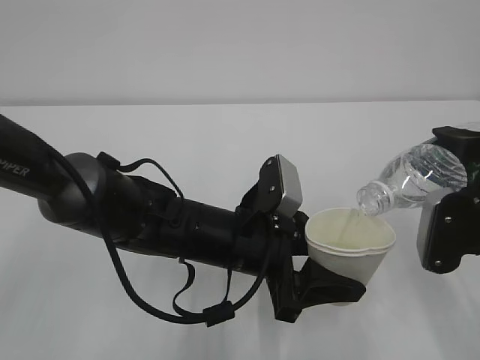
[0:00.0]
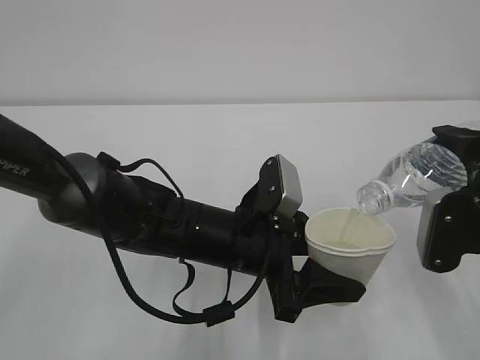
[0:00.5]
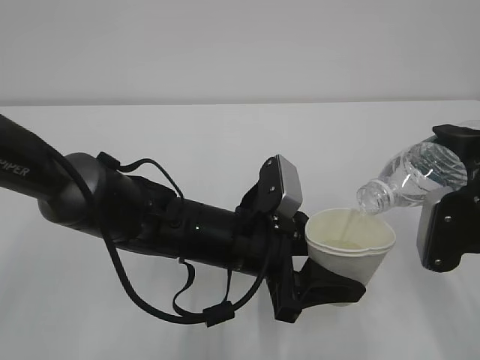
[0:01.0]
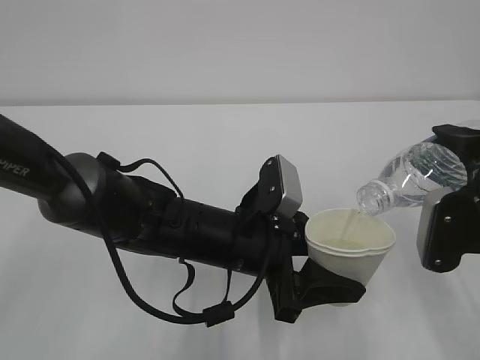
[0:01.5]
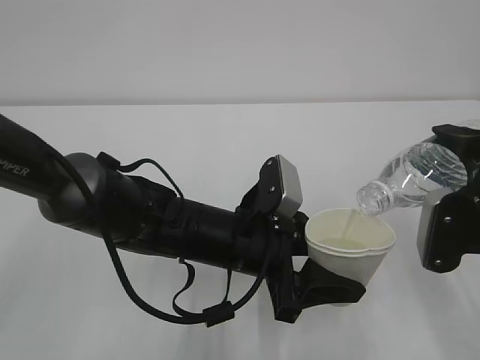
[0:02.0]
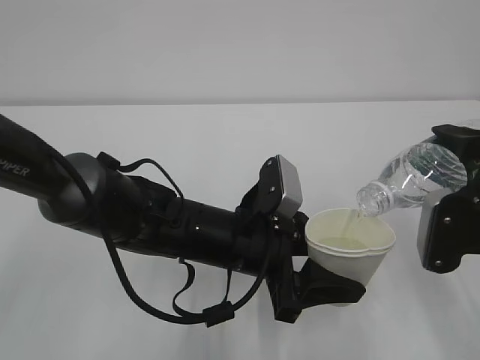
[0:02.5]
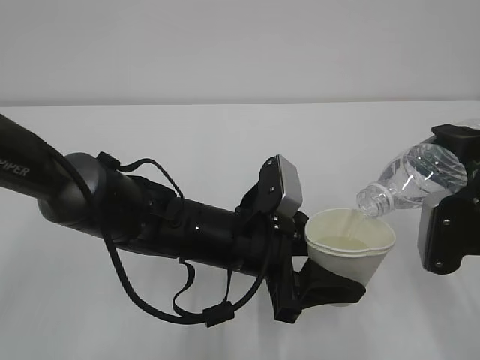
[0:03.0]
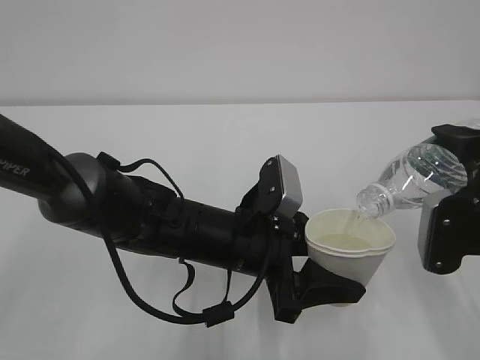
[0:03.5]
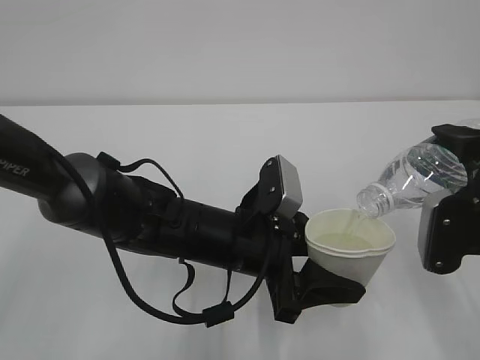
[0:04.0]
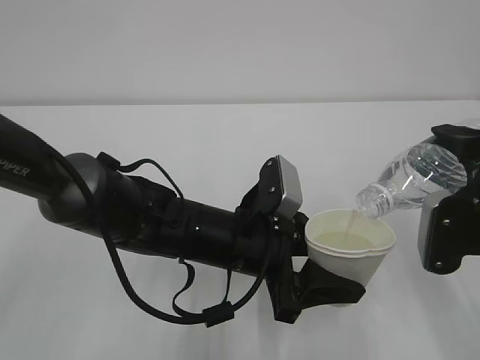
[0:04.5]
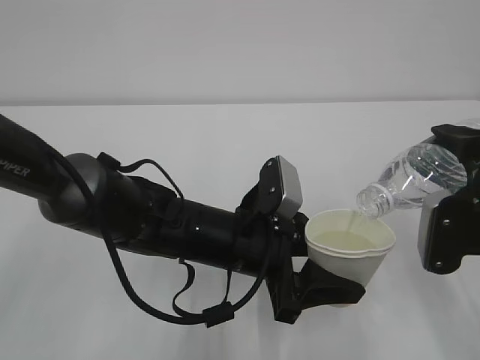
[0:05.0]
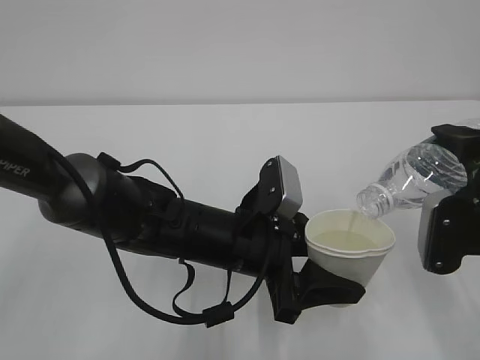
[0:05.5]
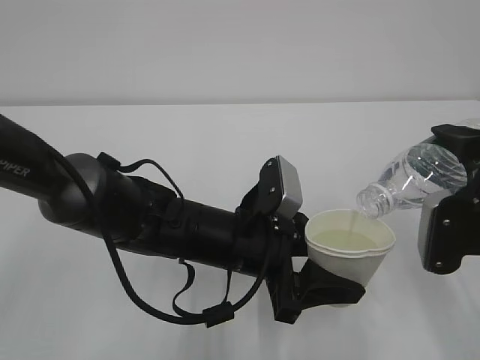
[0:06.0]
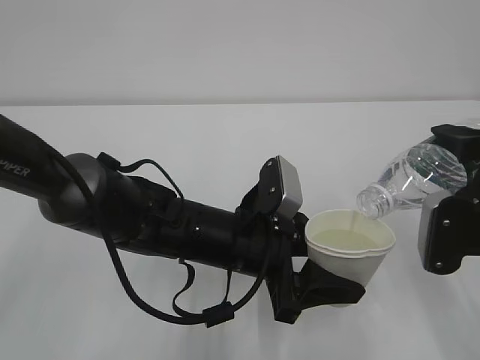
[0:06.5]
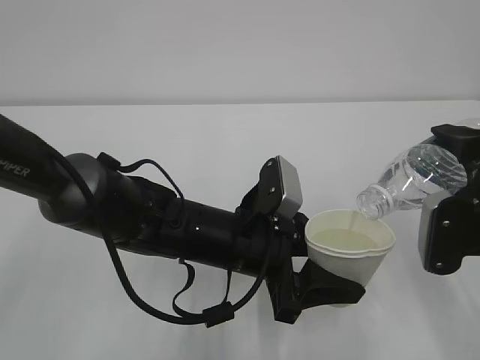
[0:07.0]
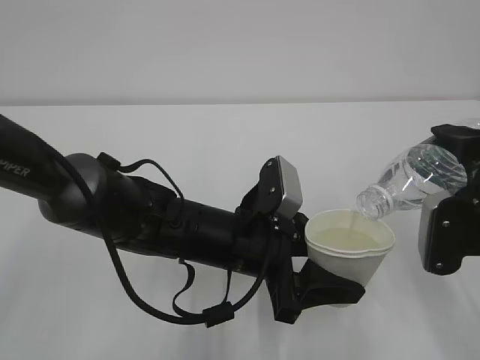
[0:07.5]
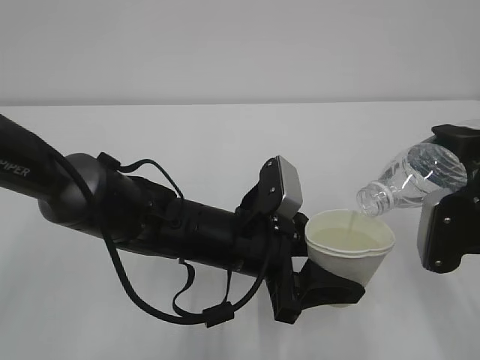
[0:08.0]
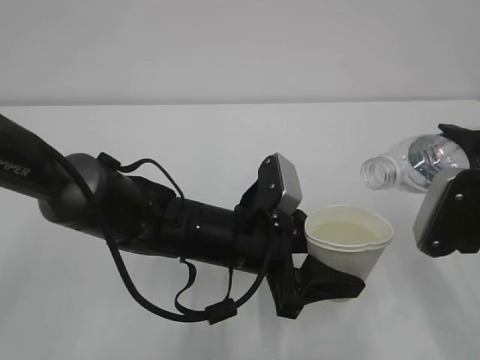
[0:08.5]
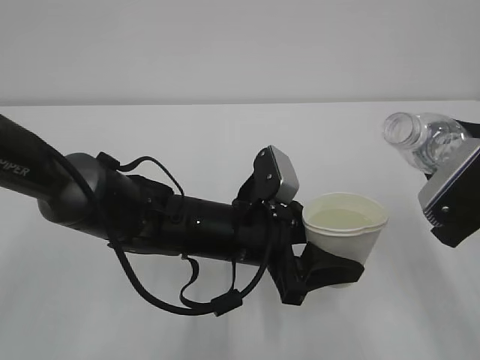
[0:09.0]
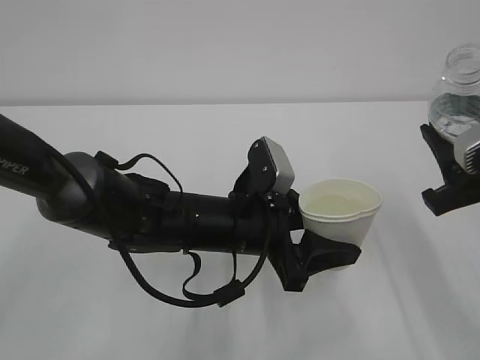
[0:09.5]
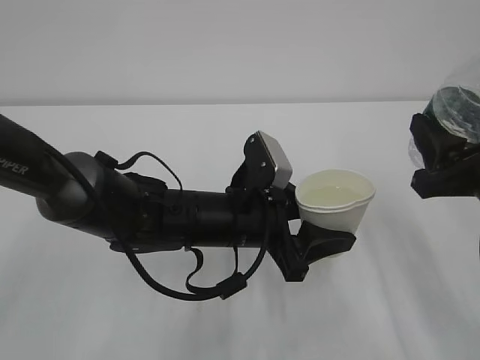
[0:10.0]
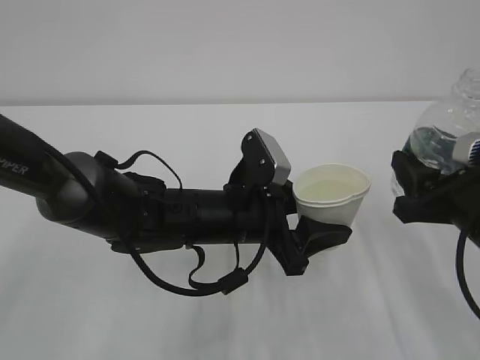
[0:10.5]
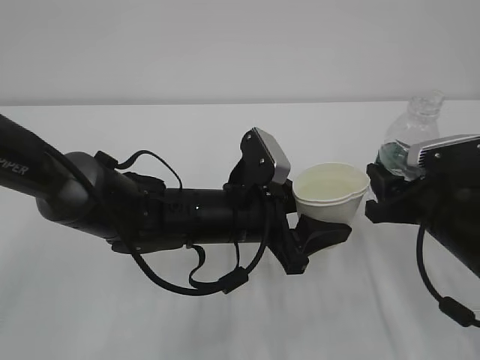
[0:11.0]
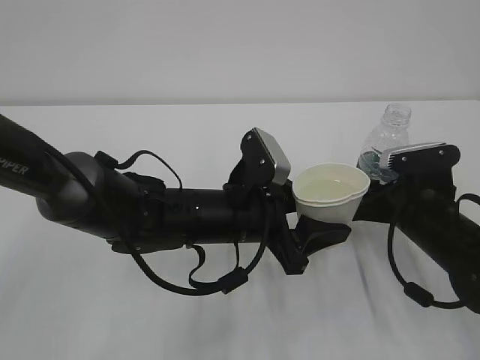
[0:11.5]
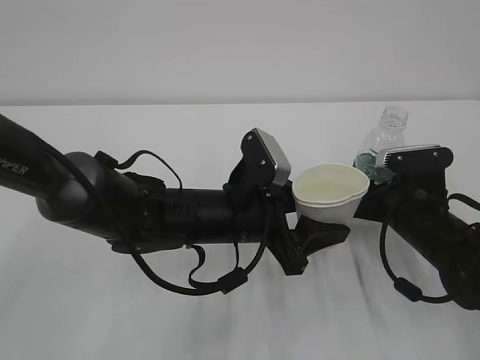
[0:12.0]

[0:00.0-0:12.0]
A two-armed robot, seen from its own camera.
0:00.0 to 0:08.0: Both grippers stay about where they are.
0:10.0 to 0:12.0: The right gripper heads downward and forward, covering some 15 cm.

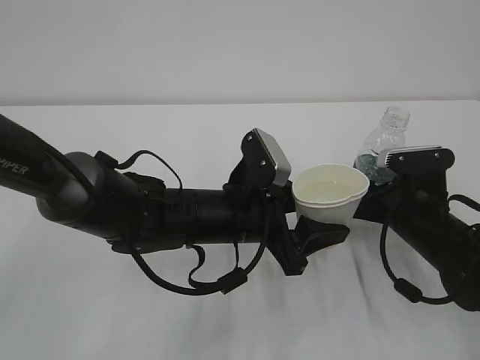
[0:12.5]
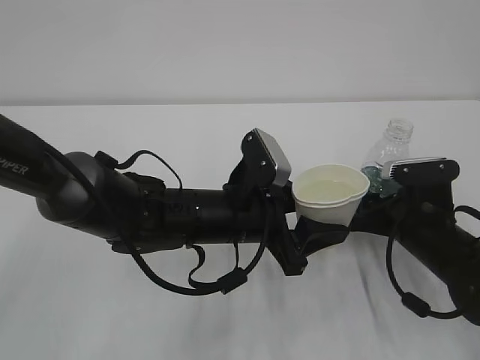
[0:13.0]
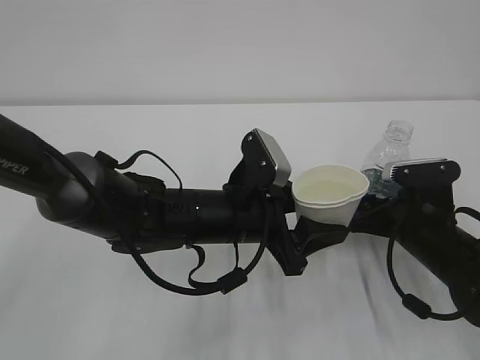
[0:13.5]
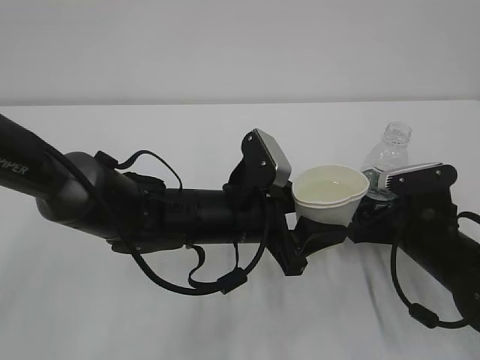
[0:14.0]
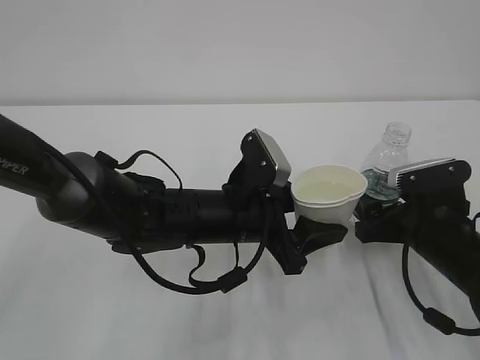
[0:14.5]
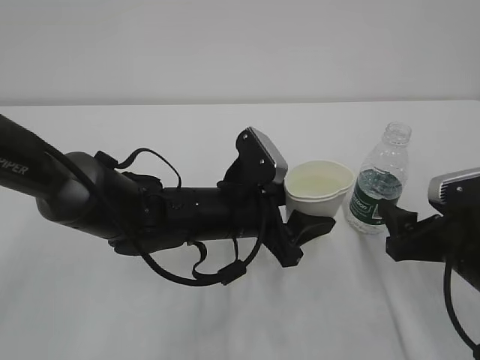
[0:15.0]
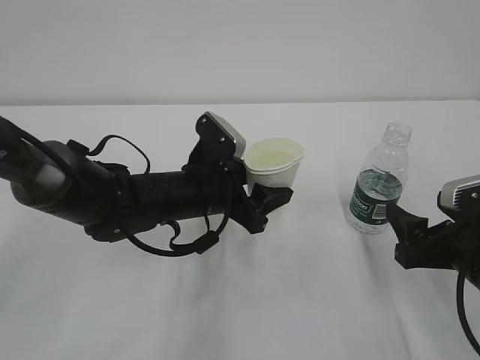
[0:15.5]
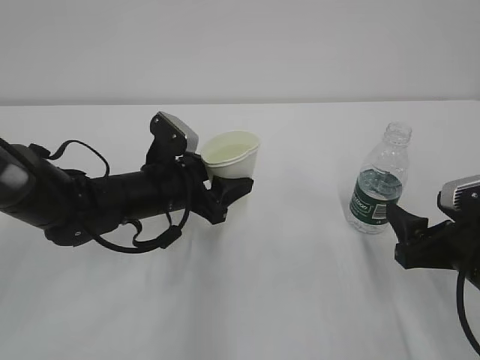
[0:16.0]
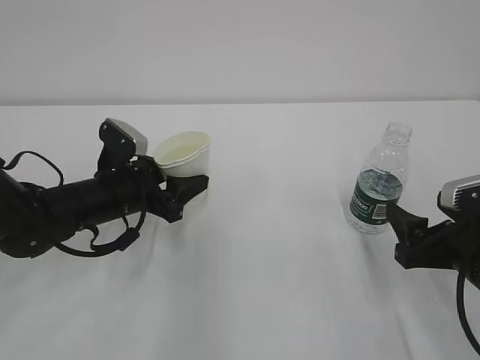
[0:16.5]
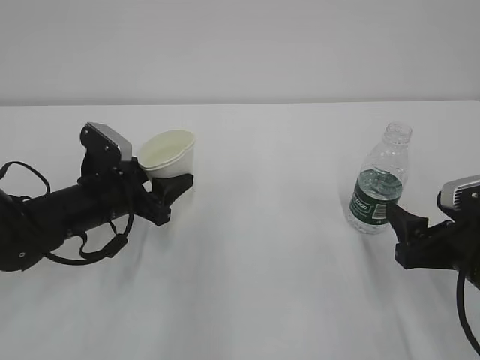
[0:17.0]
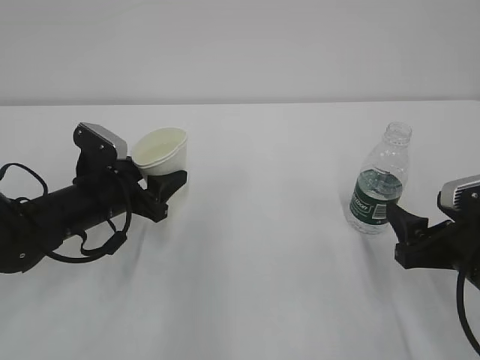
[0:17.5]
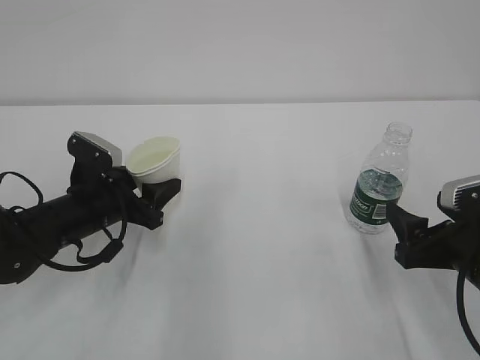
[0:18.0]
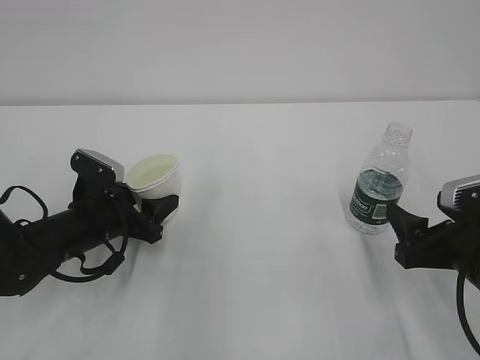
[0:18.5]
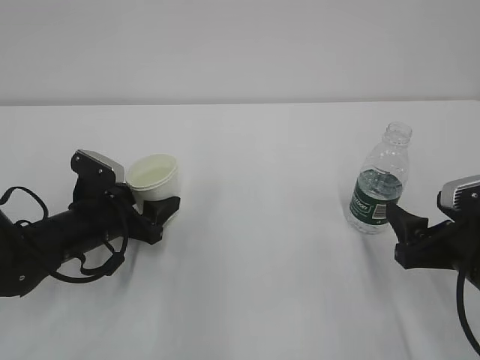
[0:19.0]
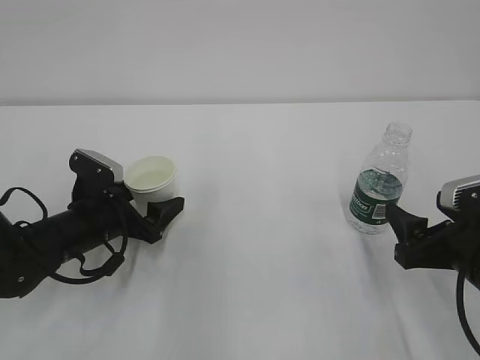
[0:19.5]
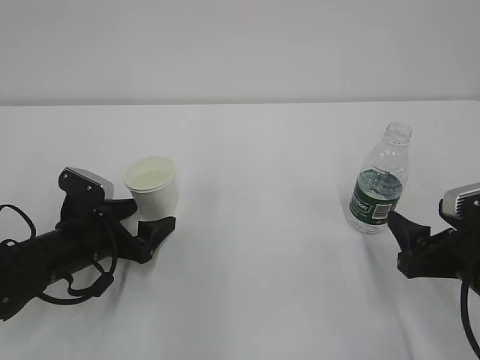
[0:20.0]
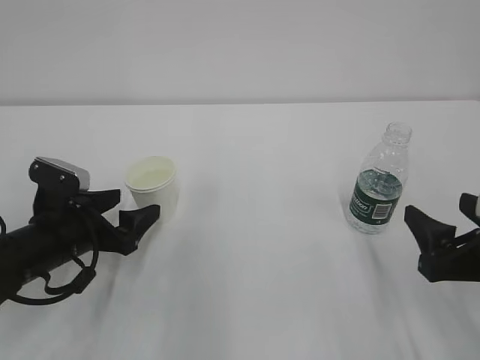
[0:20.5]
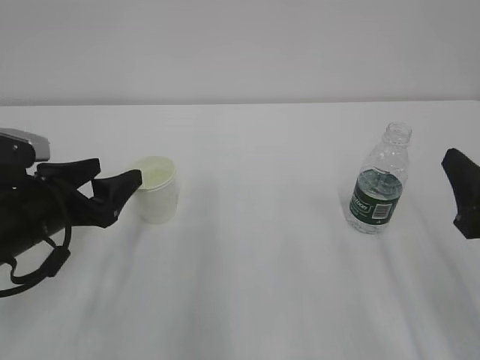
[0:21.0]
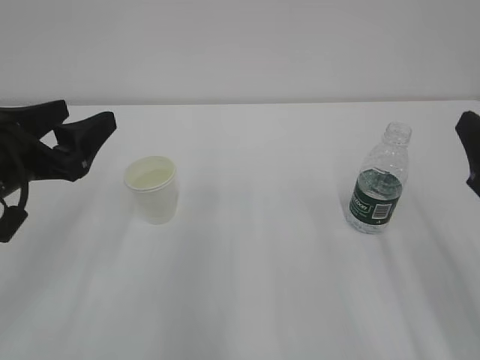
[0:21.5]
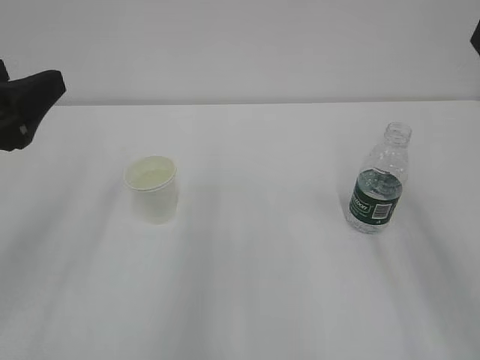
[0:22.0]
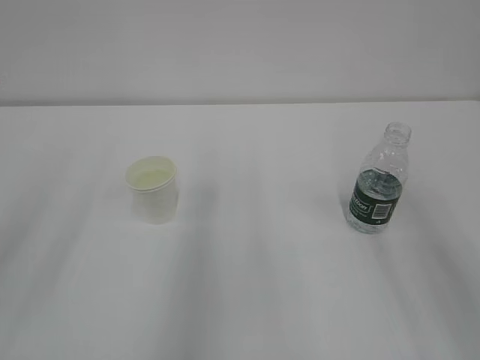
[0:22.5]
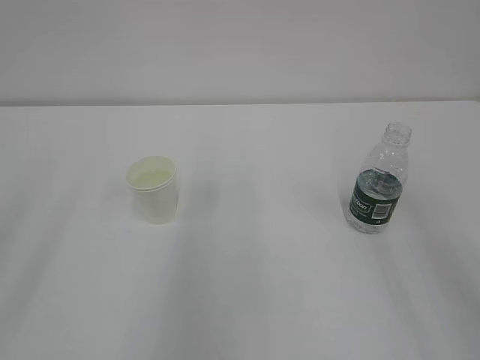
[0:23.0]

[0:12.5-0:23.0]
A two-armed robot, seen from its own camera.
0:12.5 to 0:14.5: The right gripper opens its fingers.
0:14.5 to 0:16.5: The right gripper heads backward, covering approximately 5 cm, while the left gripper moves to the left, approximately 15 cm.
0:16.5 to 0:19.0: The left gripper moves roughly 5 cm.
0:19.0 to 0:21.0: The right gripper travels upward by approximately 5 cm, while the left gripper shifts about 10 cm upward and backward.
0:21.0 to 0:23.0: Both grippers move upward and backward, roughly 20 cm.

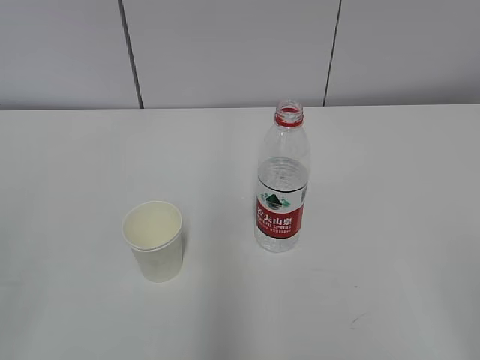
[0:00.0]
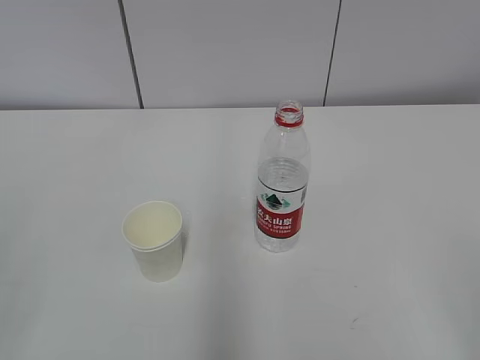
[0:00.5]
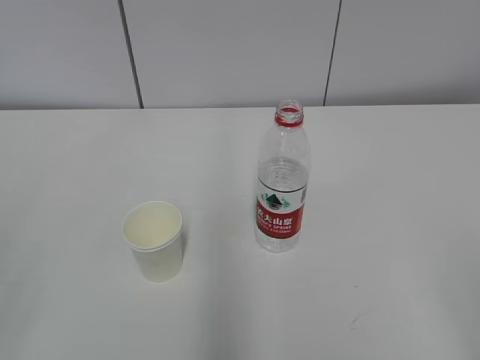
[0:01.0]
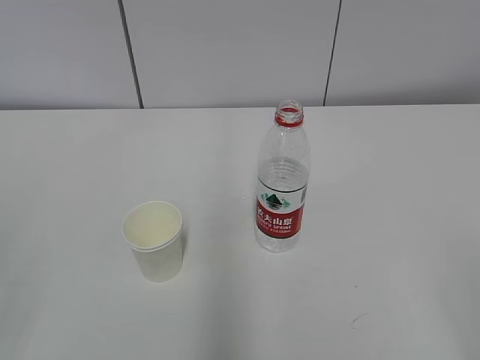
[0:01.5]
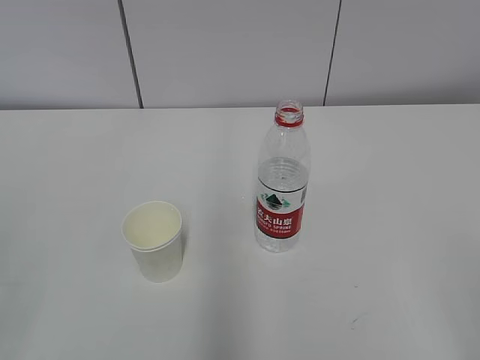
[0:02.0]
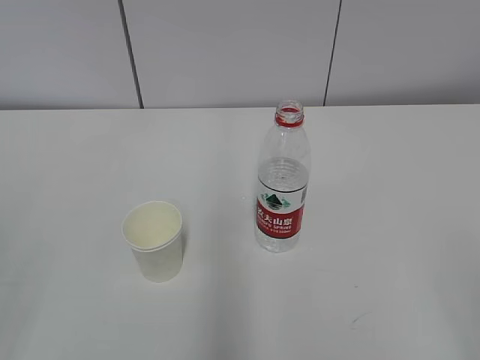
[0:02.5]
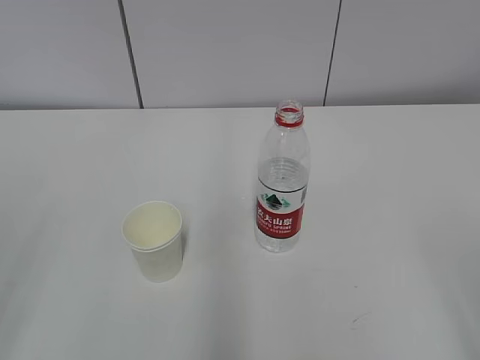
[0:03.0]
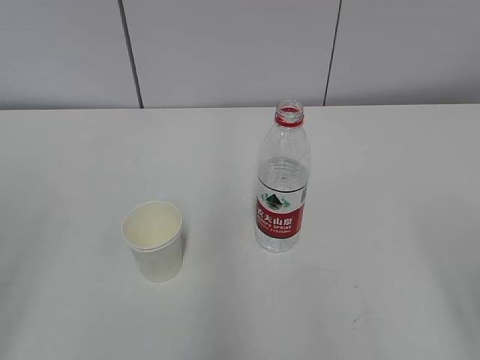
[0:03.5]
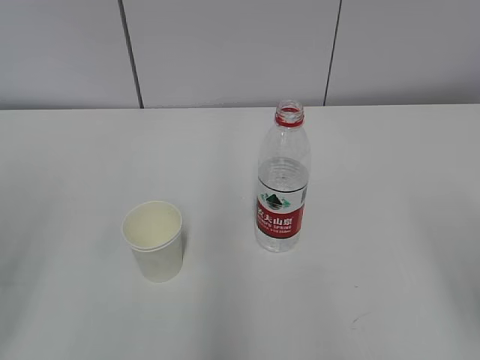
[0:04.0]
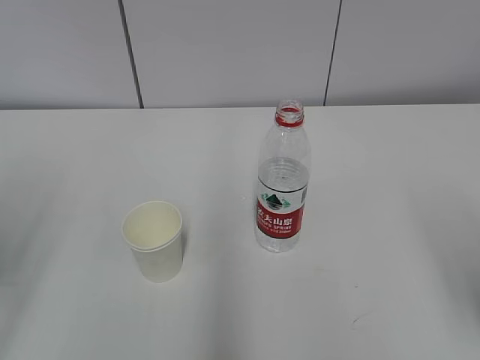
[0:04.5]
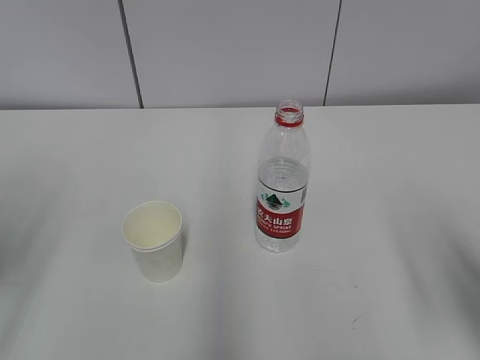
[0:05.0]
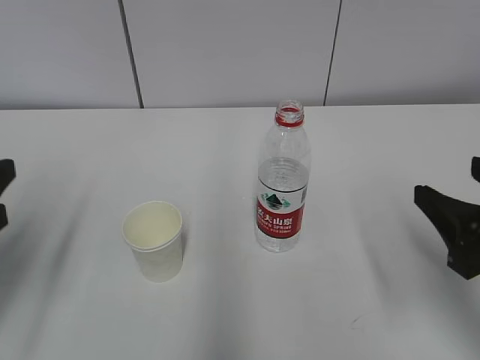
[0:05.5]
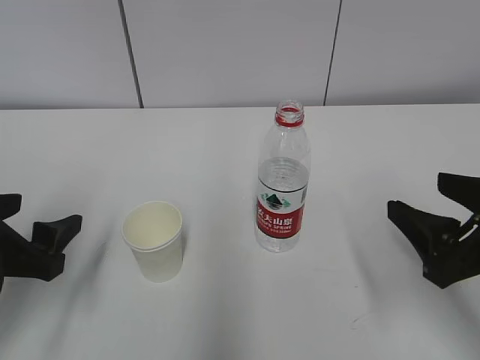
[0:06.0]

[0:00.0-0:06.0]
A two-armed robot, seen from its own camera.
0:04.0 to 0:06.0: The left gripper goes roughly 15 cm downward, forward and to the right, and opens its fingers; the right gripper travels forward and downward by some 10 cm.
